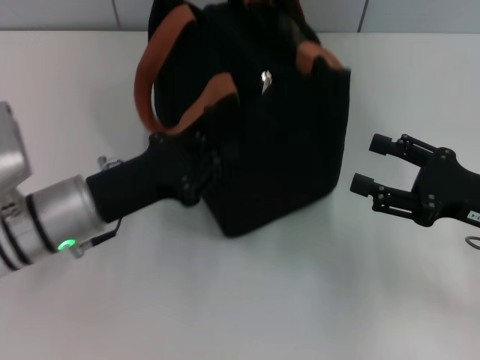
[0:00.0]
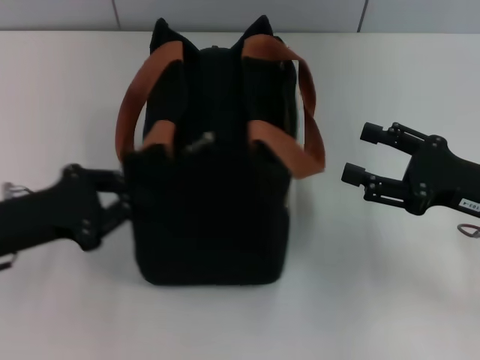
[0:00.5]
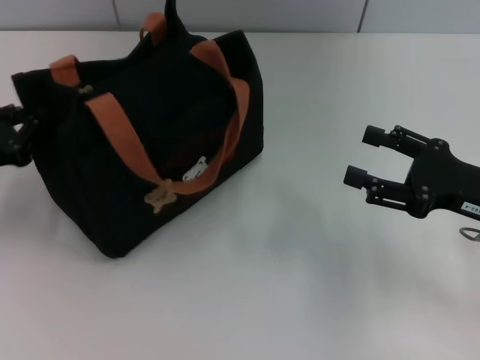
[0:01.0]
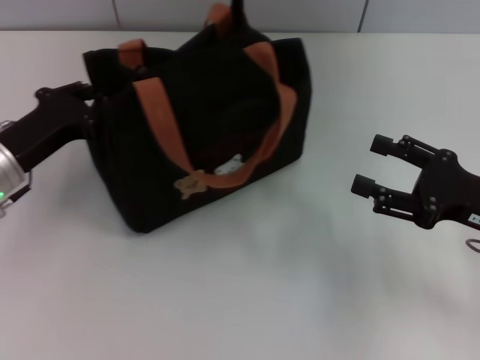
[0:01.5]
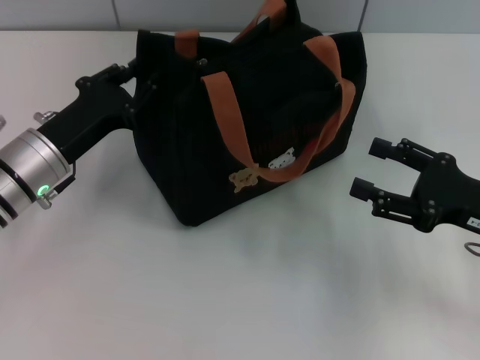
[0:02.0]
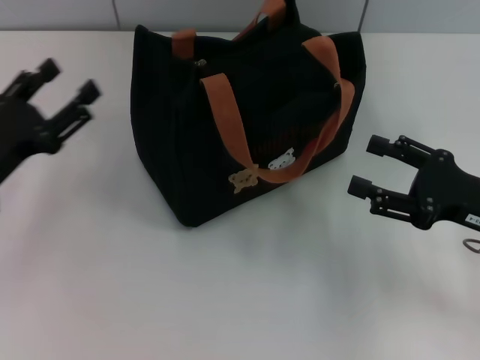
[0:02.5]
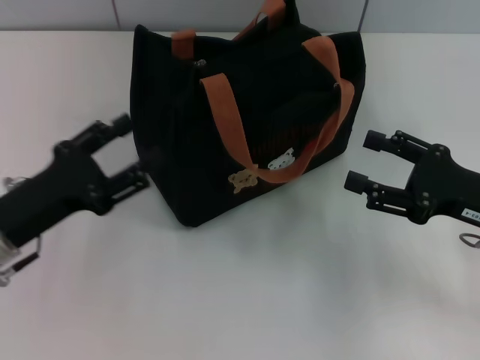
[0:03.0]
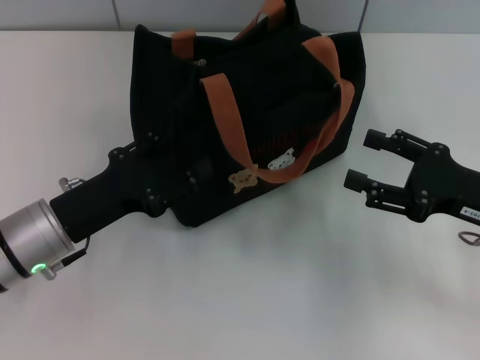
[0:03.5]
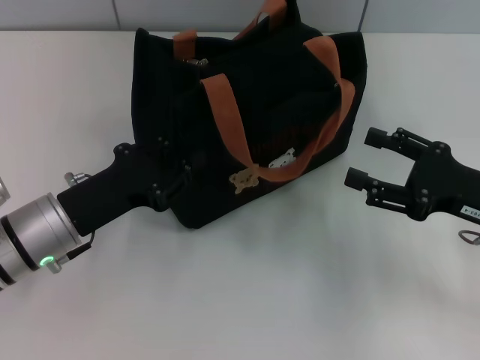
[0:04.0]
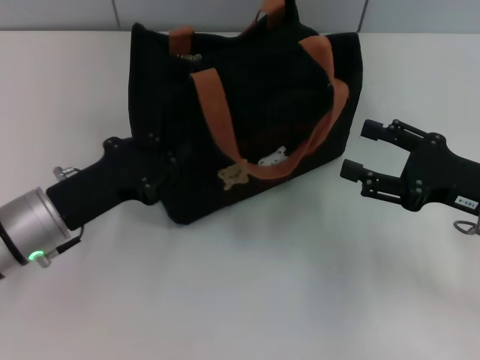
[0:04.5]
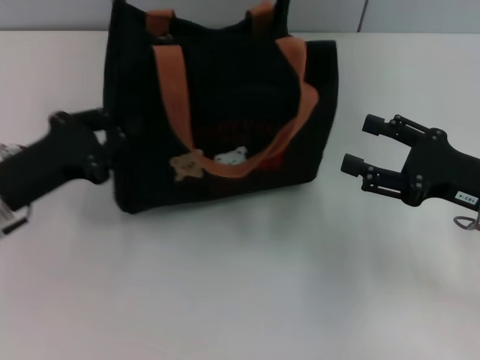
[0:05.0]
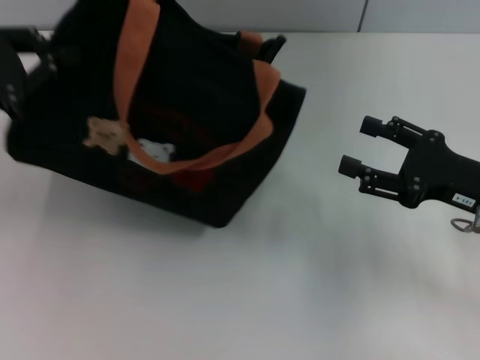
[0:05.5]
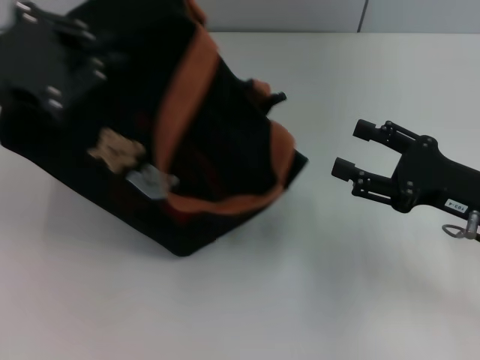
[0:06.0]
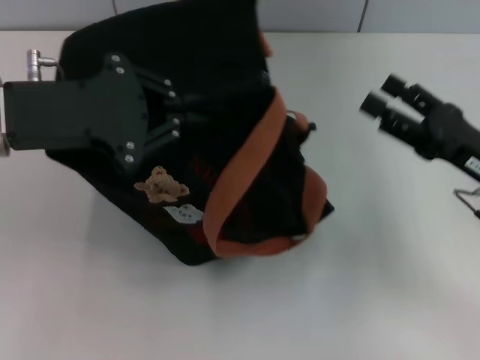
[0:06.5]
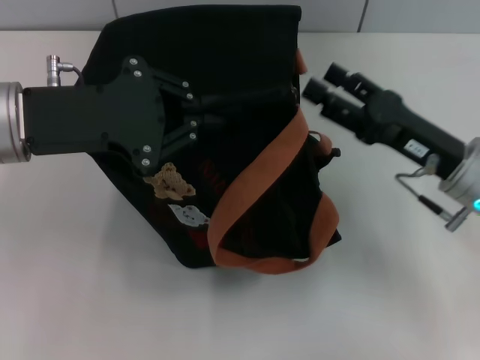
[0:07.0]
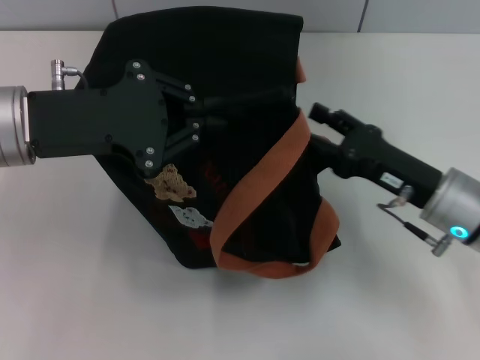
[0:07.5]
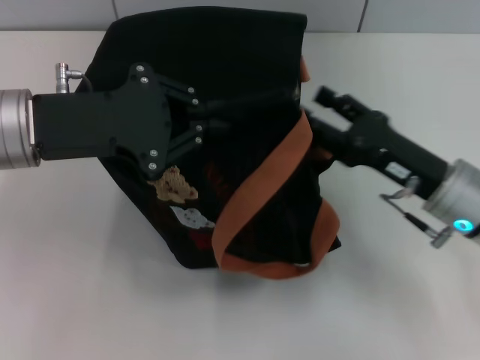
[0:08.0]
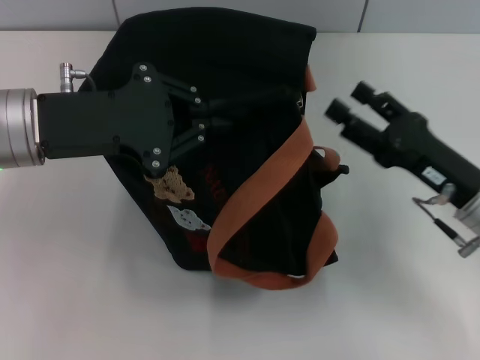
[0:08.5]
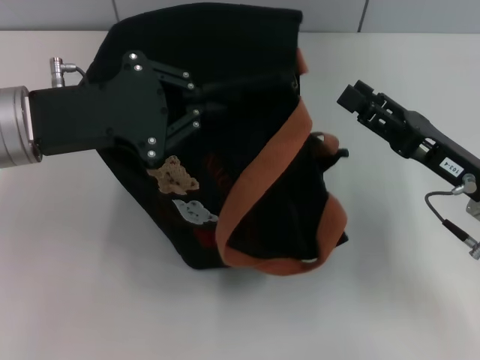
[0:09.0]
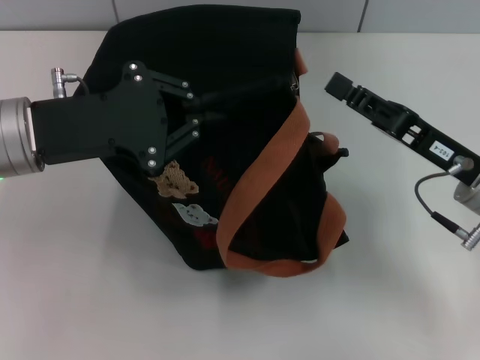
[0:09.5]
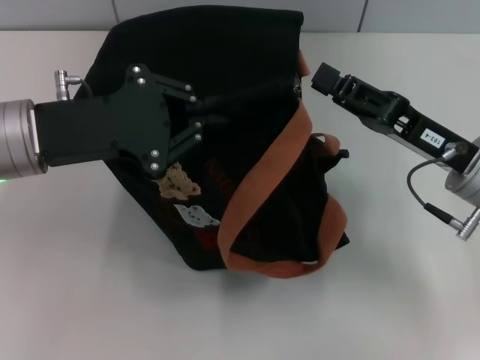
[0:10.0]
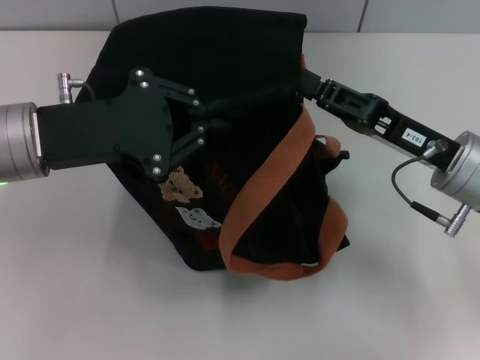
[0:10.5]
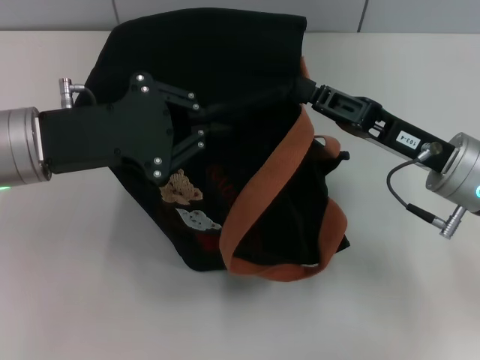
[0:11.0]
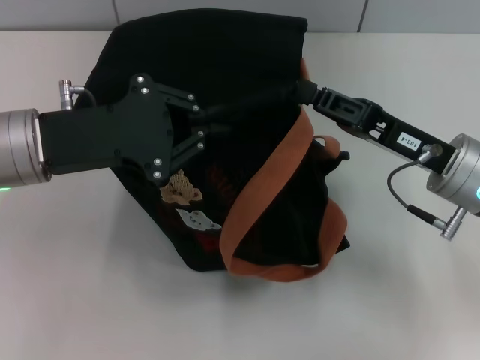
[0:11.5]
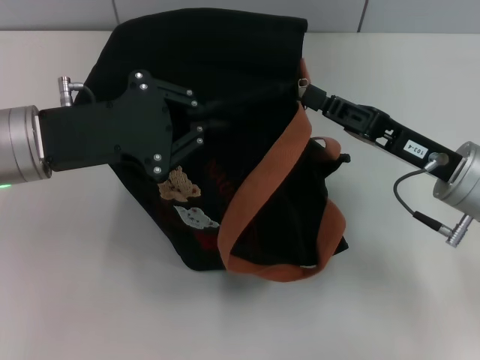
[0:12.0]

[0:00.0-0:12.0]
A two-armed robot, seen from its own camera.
0:00.0 to 0:02.0: The left gripper goes to the left and returns, some 15 cm each way.
0:02.0 to 0:04.0: The left gripper shifts roughly 5 cm backward, and opens and closes again.
0:04.0 to 0:06.0: The left gripper heads upward, covering about 15 cm, and closes up.
0:06.0 to 0:08.0: The right gripper moves to the left, roughly 5 cm. The left gripper goes roughly 5 cm to the right.
0:08.0 to 0:10.0: The right gripper closes.
0:10.0 to 0:12.0: The right gripper closes up.

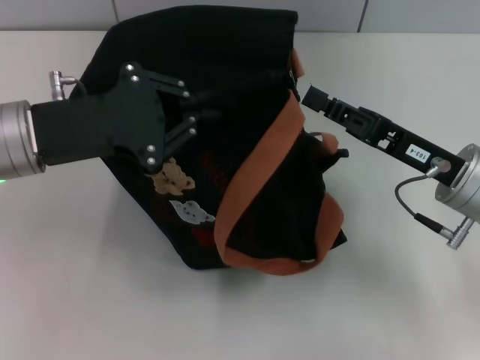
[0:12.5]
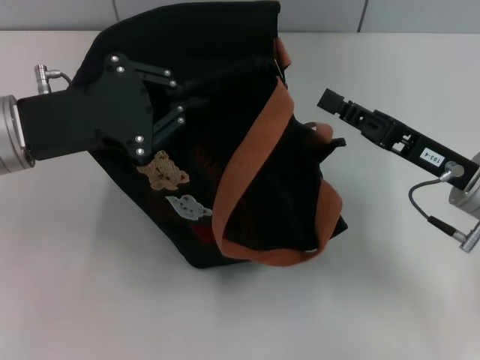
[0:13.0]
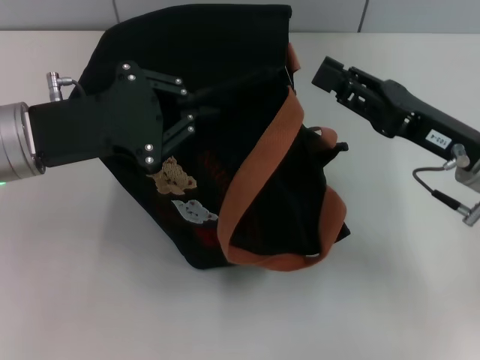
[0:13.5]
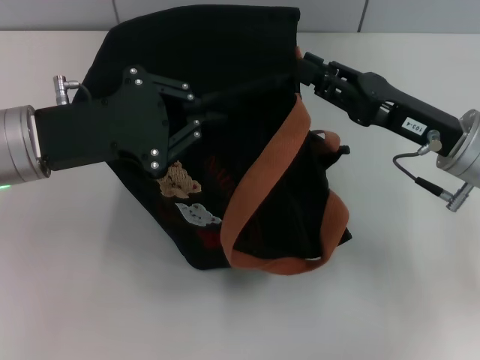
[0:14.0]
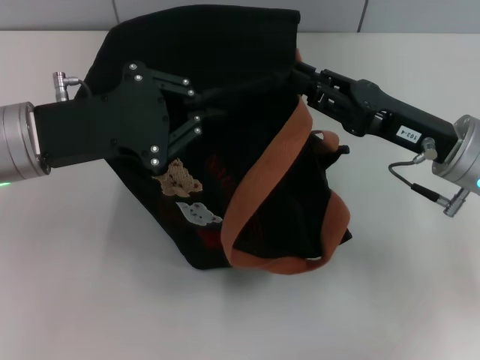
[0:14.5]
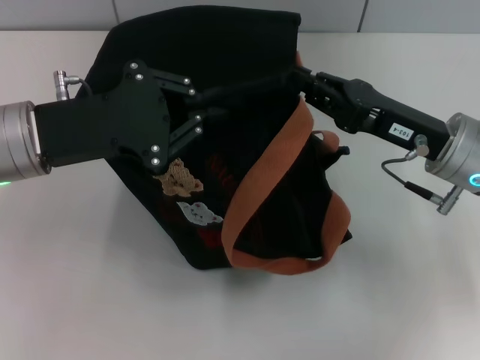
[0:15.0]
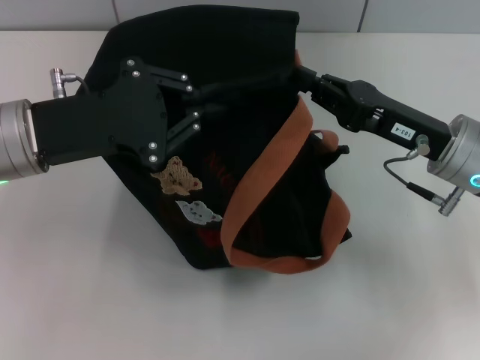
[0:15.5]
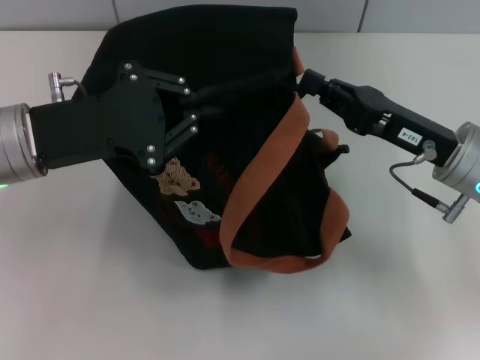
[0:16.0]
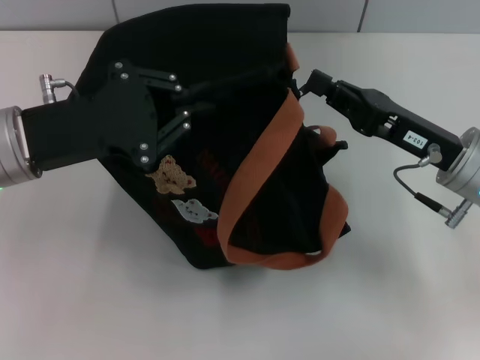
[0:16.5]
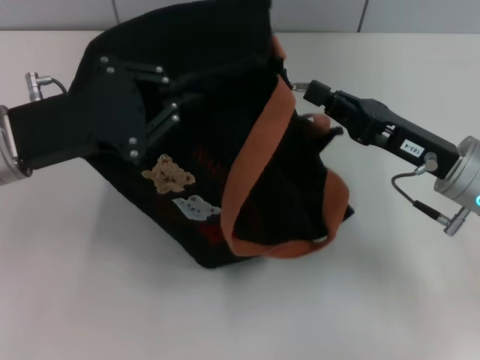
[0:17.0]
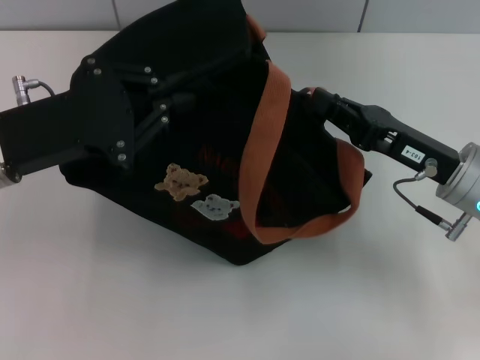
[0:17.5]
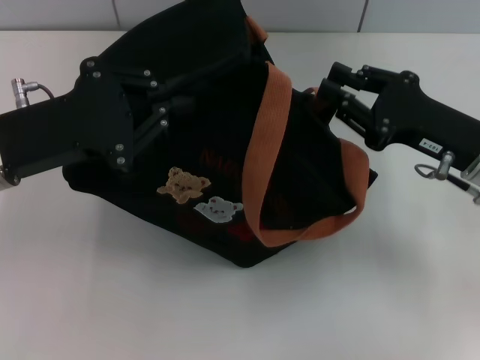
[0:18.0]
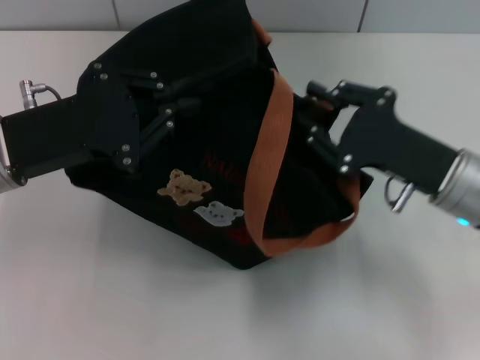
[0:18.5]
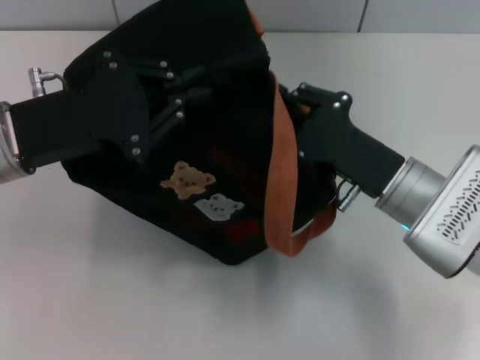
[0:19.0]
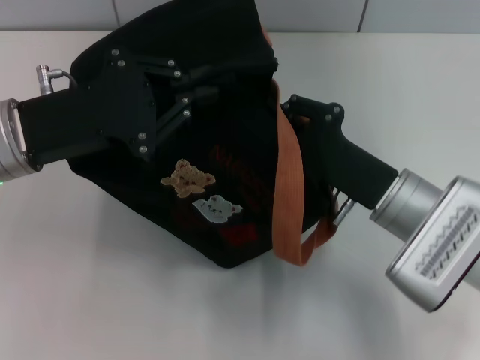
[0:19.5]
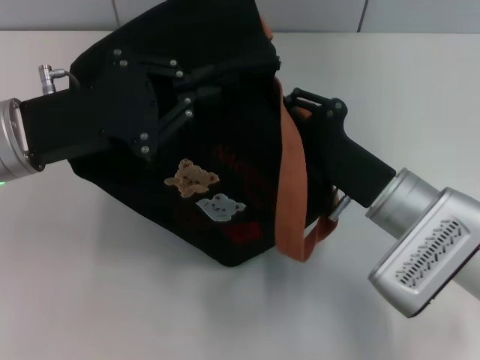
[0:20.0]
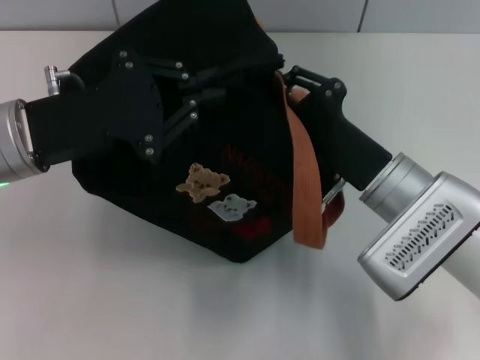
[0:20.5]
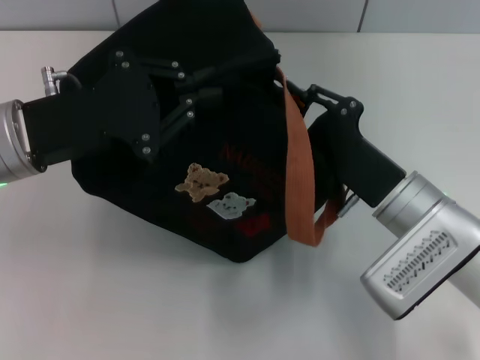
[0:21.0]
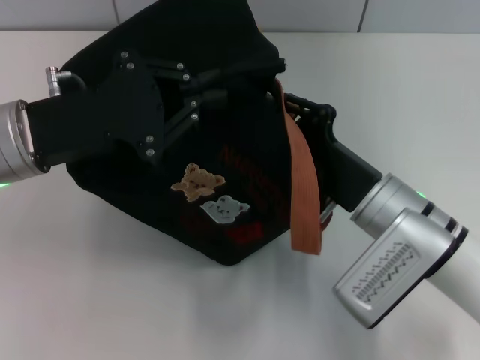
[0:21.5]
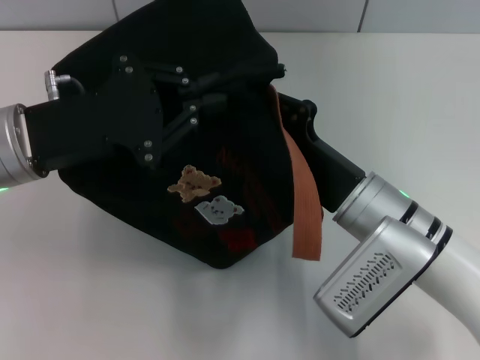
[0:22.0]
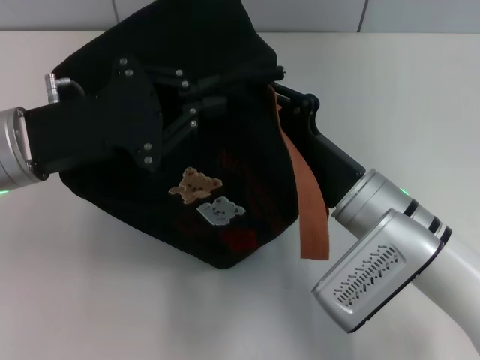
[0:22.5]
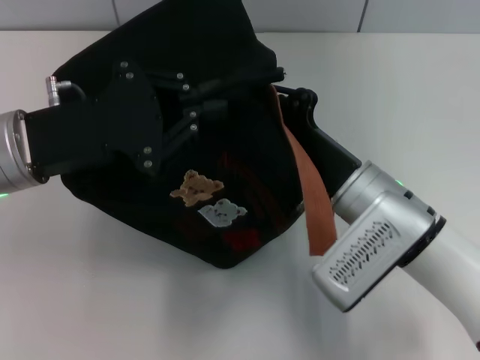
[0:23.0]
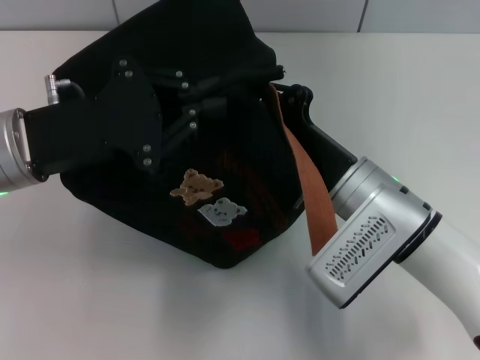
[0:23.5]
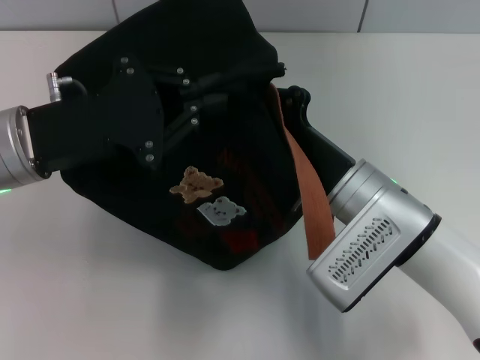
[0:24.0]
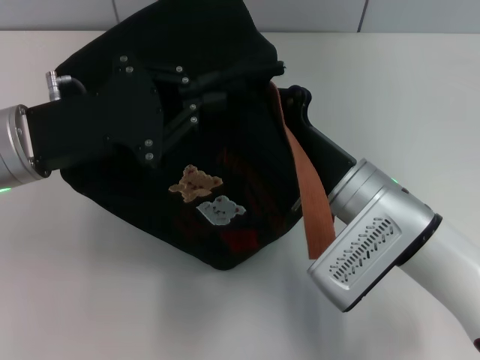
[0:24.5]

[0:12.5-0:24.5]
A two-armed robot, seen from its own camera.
0:12.5 to 0:14.5: The right gripper opens its fingers.
0:14.5 to 0:16.5: The right gripper closes its fingers.
0:16.5 to 0:18.5: The right gripper opens.
0:18.5 to 0:20.5: The right gripper shifts about 5 cm to the left.
0:20.5 to 0:22.5: The grippers stay close to where they were, moving slightly.
0:22.5 to 0:24.5: The right gripper closes.

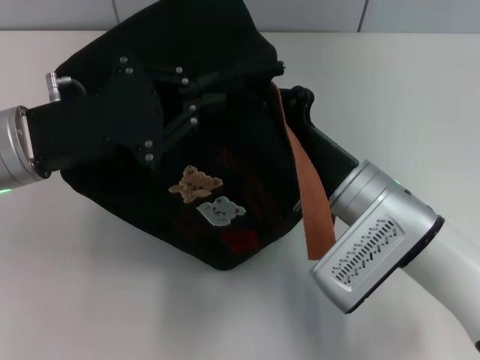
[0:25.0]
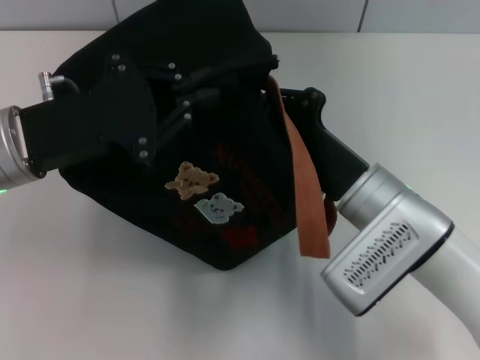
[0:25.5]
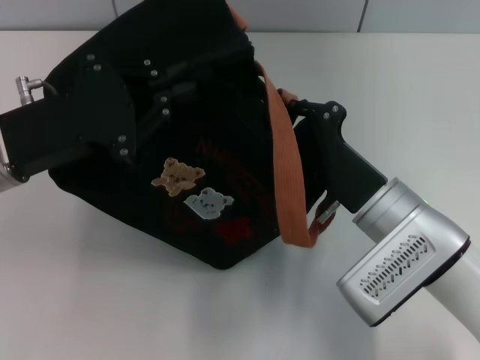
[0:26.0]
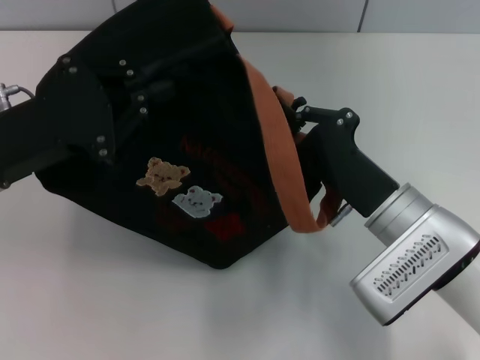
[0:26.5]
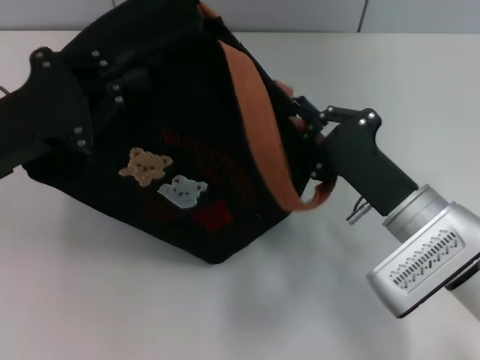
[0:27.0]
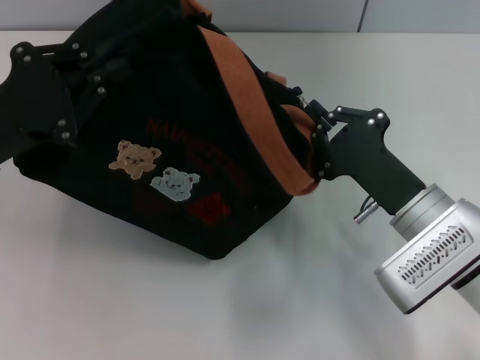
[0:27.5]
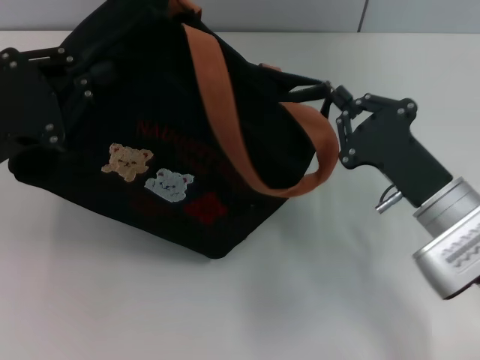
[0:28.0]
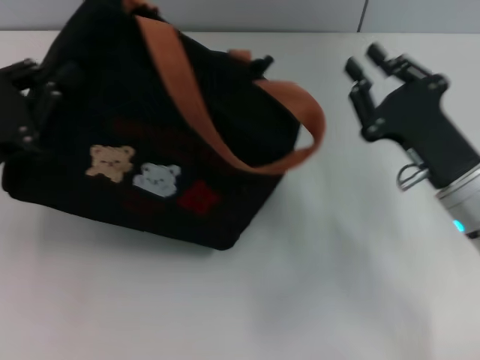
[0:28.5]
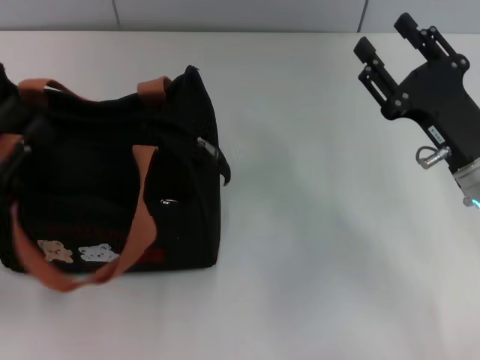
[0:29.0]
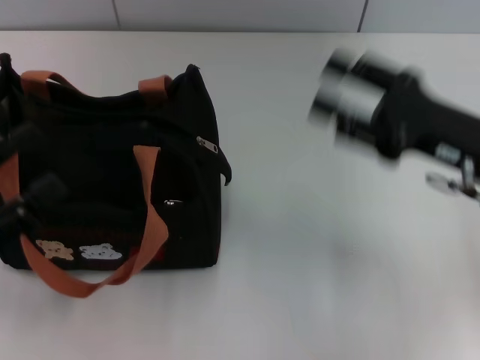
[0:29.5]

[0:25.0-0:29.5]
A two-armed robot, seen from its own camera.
Step, 0:25.0 to 0:28.0: Pull open the zipper with your right hand.
Step, 0:28.5 to 0:29.0: Grab the bag with your left hand.
0:25.0 to 0:27.0: The right gripper is displaced to the right by approximately 5 cm.
0:27.0 to 0:29.5: The left gripper goes about 10 cm backward and to the left, and opens its fingers. Meanwhile the right gripper moves upward and to the right, roughly 10 cm, and opens.
